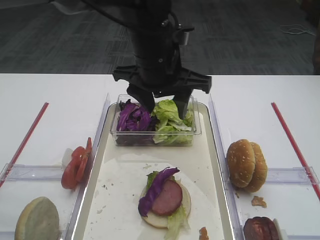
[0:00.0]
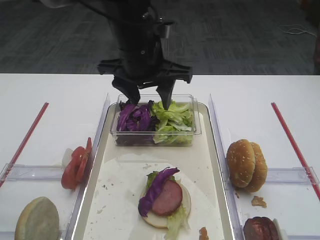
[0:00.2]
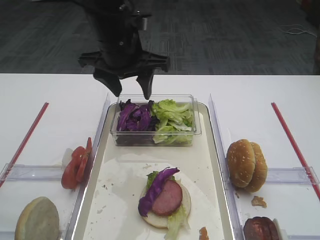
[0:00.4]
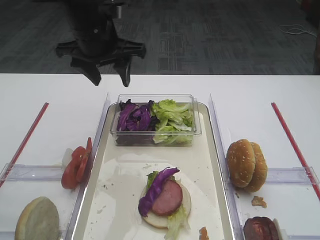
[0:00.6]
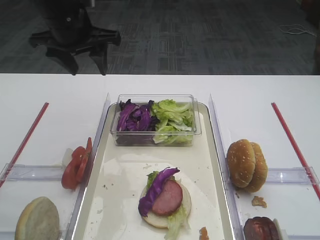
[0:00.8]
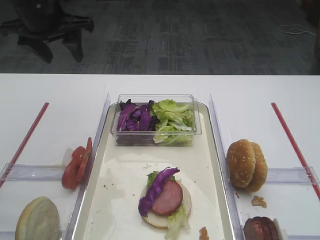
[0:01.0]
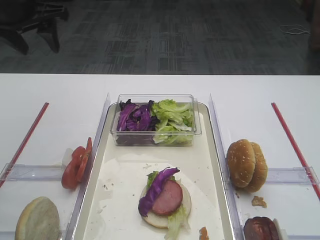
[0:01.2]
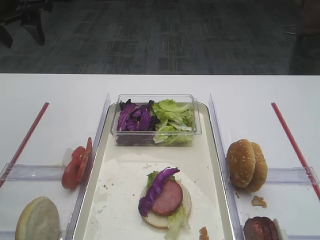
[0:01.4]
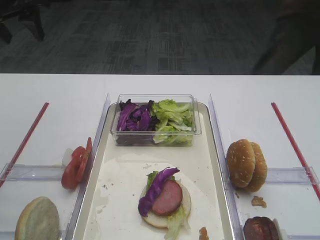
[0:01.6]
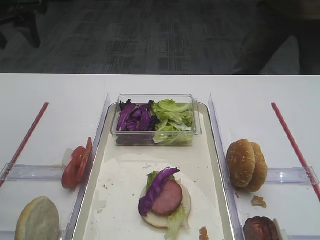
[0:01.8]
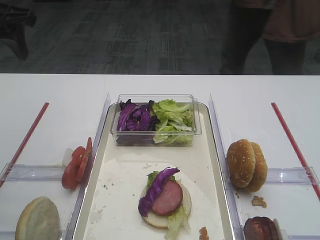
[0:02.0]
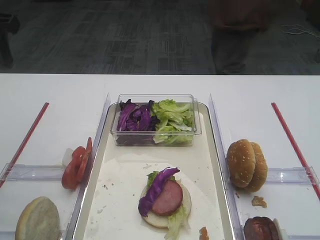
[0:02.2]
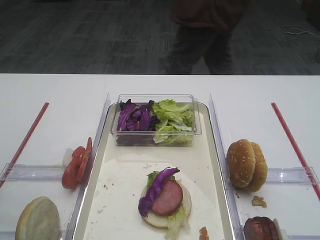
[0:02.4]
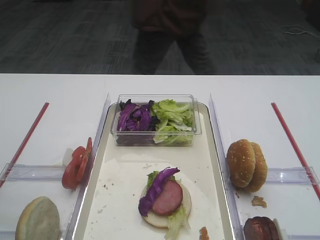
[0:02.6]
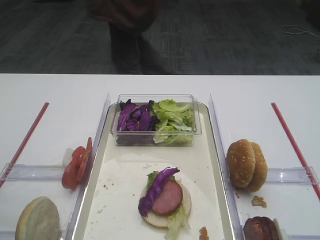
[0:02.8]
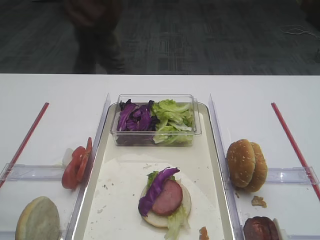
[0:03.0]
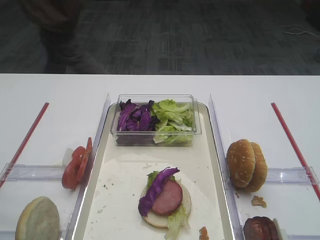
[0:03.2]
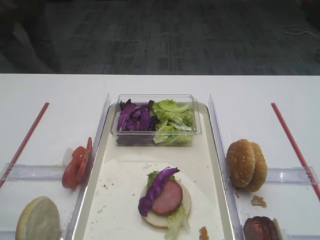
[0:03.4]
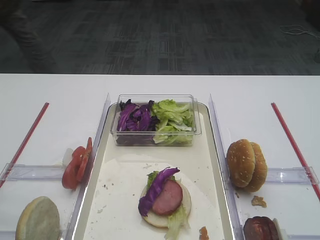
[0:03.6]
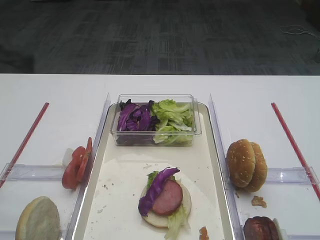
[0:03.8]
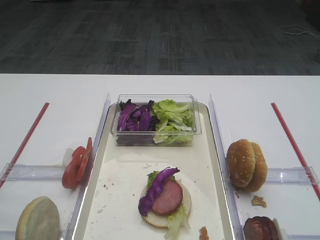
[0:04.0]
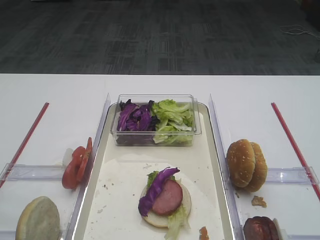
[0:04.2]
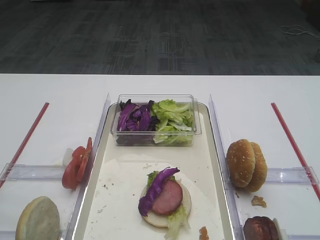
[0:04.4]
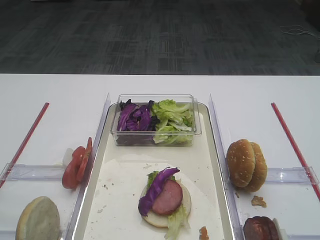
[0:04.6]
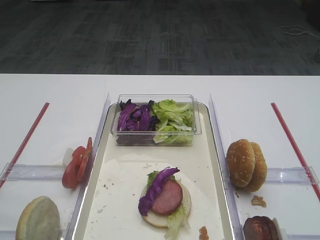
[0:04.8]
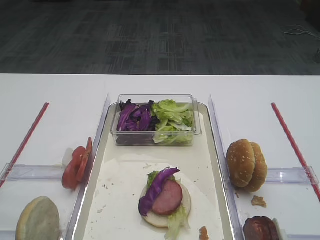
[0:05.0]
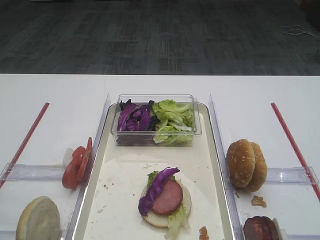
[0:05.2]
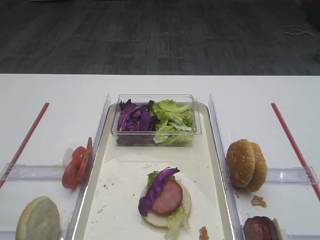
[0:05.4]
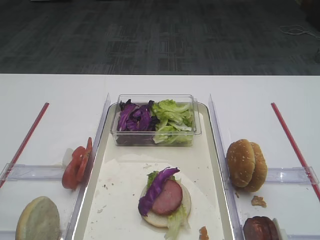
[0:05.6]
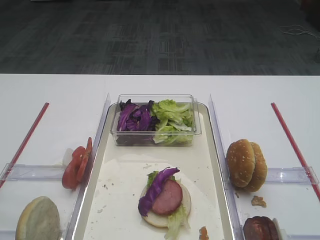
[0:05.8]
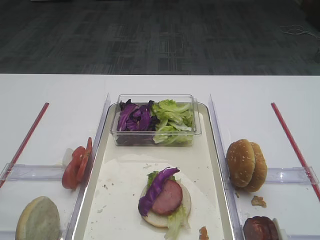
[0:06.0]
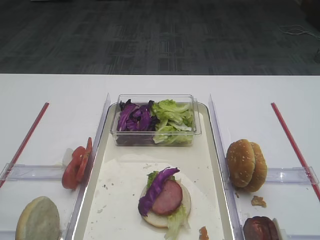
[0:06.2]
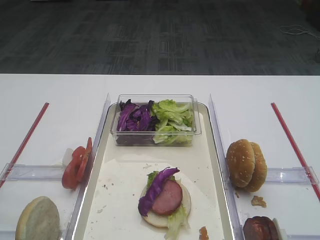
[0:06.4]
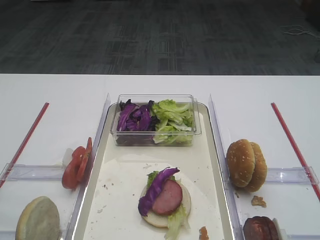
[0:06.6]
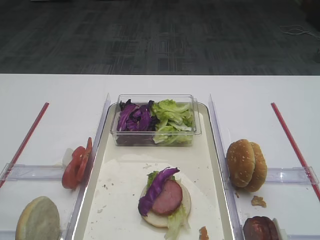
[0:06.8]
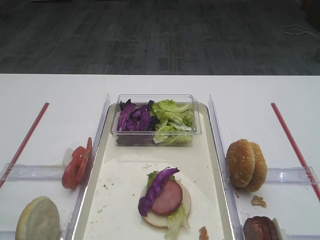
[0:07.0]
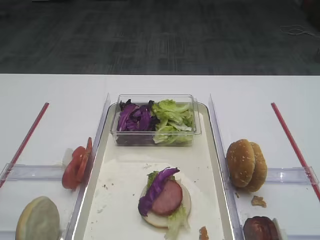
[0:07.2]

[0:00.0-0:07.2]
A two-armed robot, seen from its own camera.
0:00.0 to 0:01.4: The left gripper is displaced to the left by roughly 25 cm.
0:01.4 to 0:02.8: The left gripper is displaced backward by about 20 cm.
0:02.8 to 0:04.4: The left gripper travels backward by about 20 cm.
0:05.8 to 0:07.2: The two grippers keep their place.

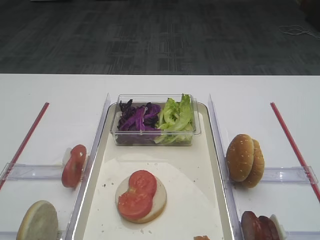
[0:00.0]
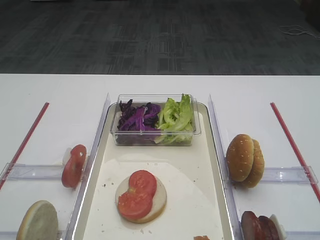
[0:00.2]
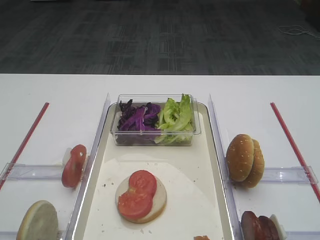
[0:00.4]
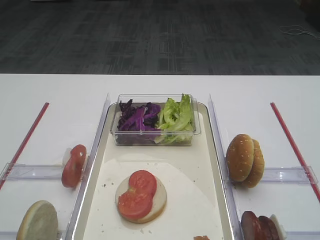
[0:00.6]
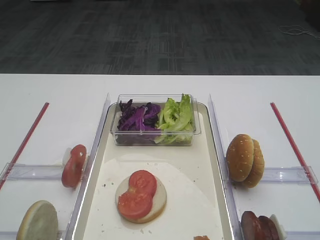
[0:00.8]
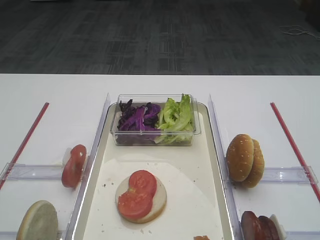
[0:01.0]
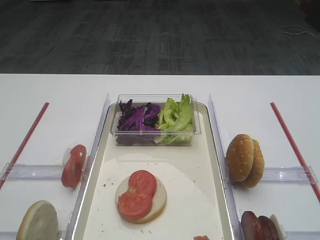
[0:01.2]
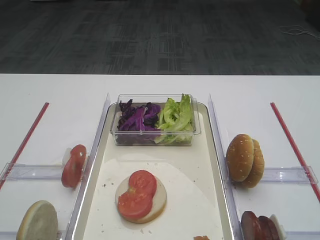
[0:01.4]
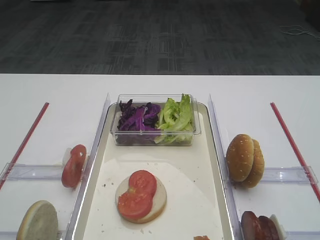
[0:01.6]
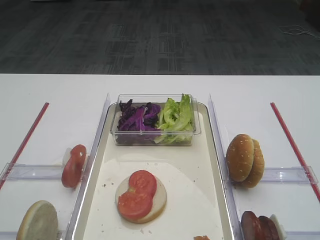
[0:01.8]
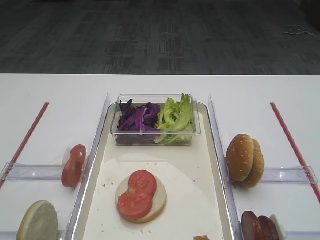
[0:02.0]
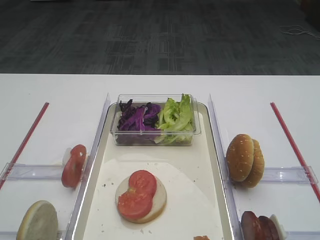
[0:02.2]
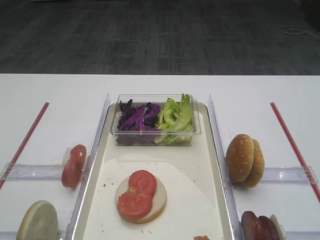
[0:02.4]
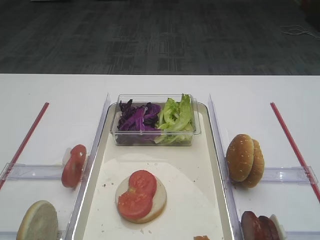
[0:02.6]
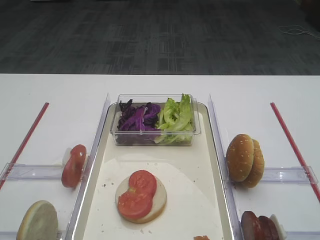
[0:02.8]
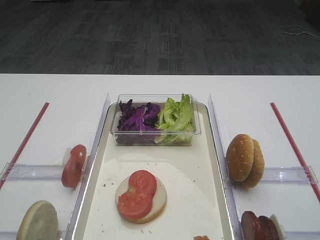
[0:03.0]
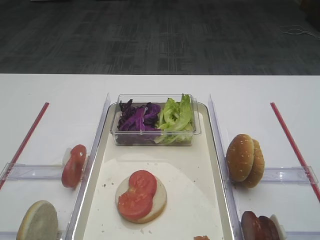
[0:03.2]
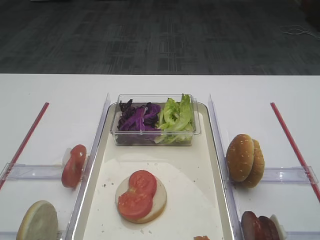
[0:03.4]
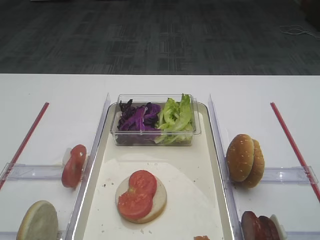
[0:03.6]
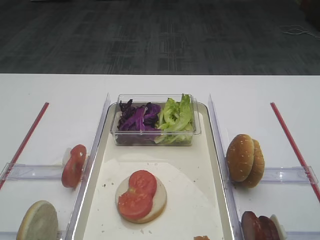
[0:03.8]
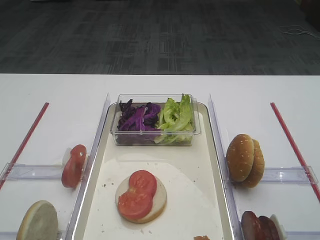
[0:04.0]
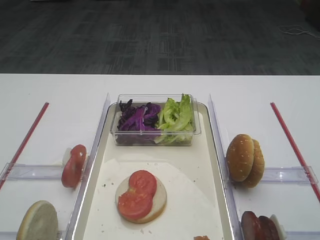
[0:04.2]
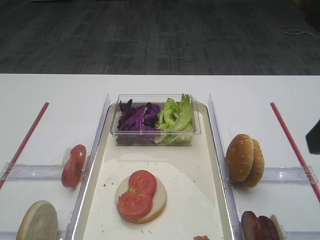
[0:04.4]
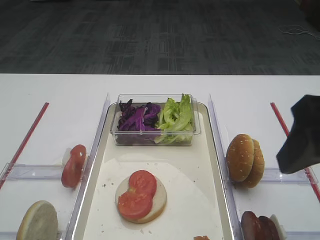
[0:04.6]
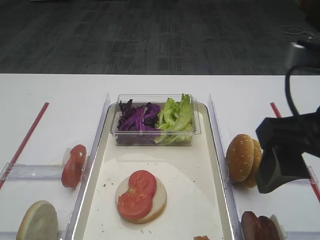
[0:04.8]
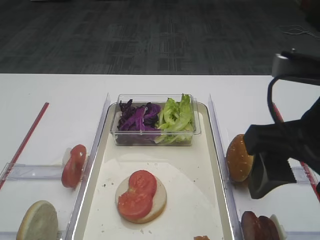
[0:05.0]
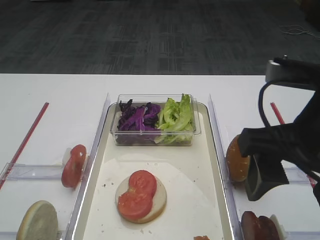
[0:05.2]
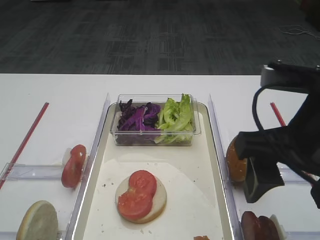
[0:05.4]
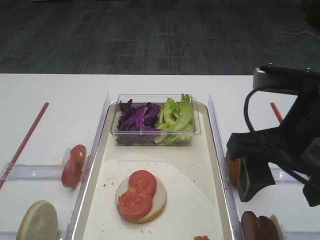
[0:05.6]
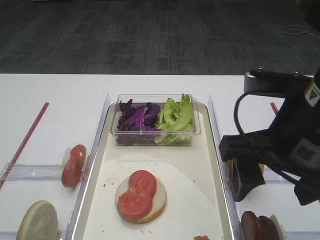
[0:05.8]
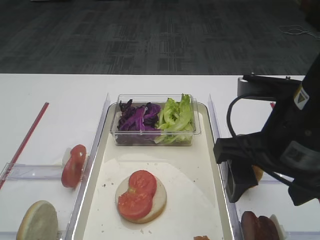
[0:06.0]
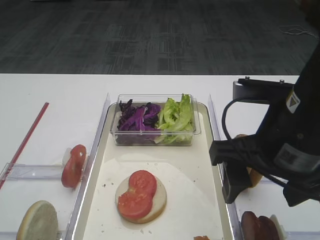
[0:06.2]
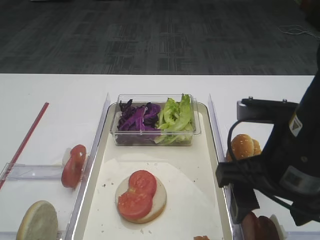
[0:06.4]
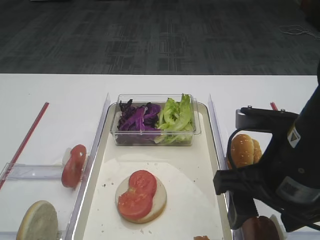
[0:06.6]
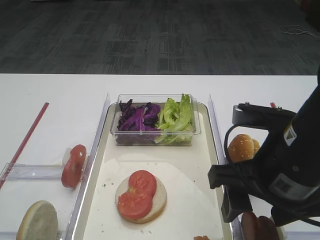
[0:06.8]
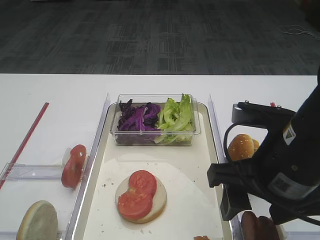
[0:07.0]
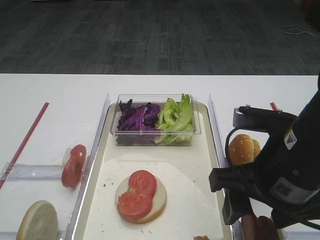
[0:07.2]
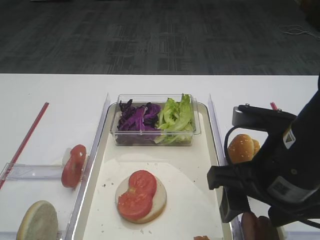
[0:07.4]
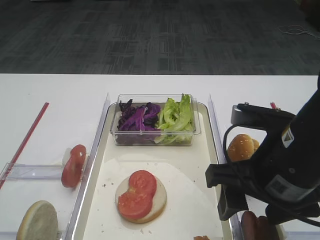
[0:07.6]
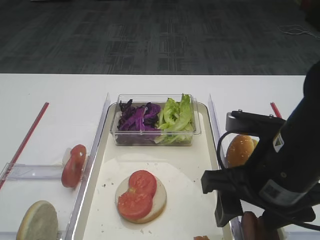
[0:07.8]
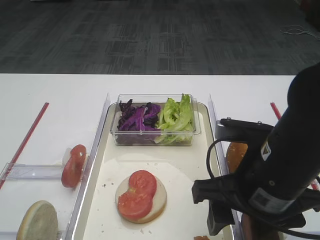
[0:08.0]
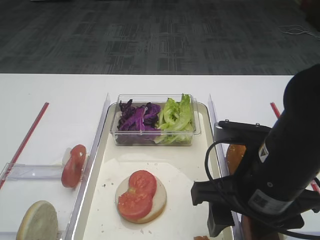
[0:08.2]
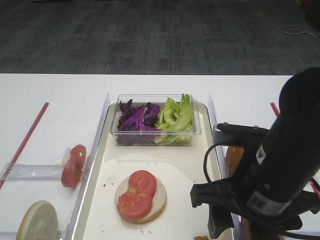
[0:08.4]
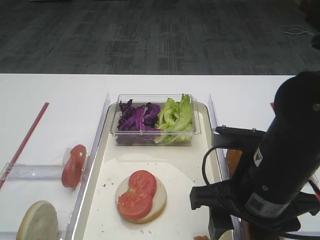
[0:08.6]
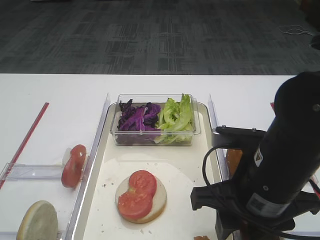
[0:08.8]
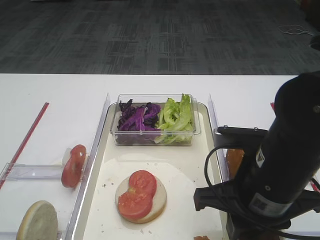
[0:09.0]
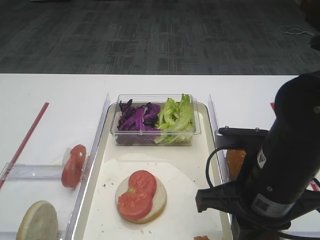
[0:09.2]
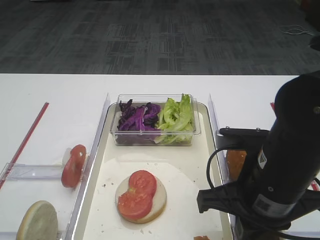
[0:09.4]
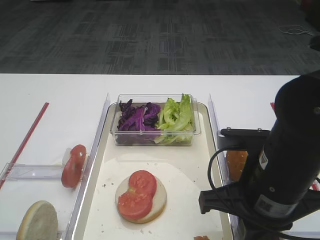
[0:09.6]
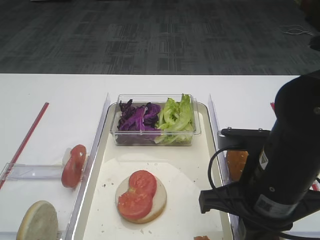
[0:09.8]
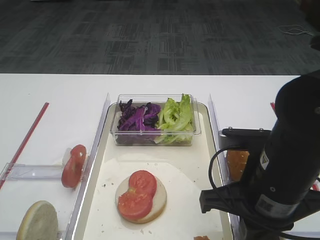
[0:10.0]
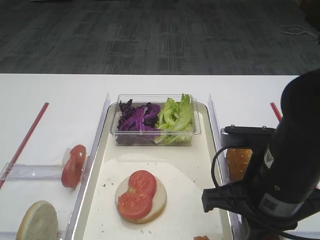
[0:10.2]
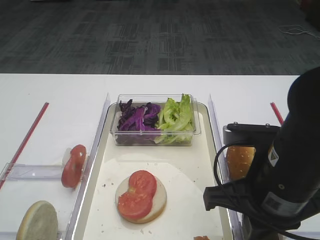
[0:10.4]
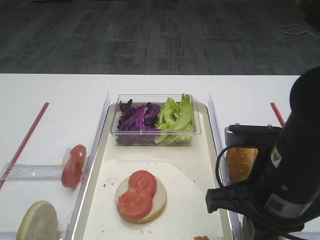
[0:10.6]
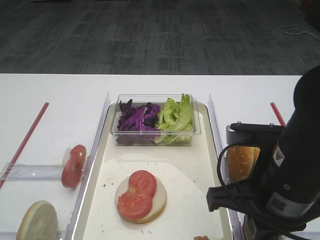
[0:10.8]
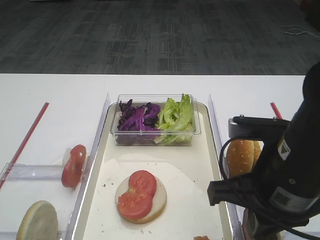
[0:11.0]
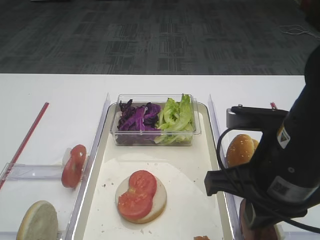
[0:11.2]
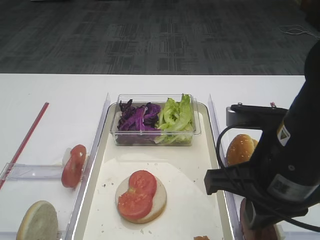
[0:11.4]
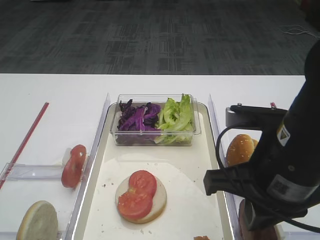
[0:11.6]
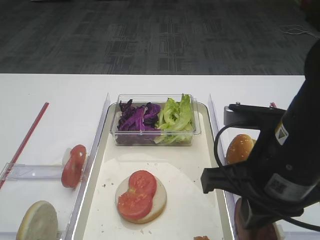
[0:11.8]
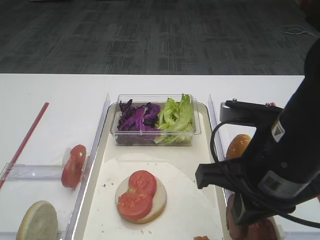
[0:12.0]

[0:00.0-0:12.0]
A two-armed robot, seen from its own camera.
0:04.4 to 0:06.0: The right gripper goes about 10 cm to the left and downward.
0:06.0 to 0:07.6: The grippers stay close to where they were, moving slightly.
0:07.6 to 0:09.0: The right gripper closes its fingers.
0:09.0 to 0:12.0: The grippers stay close to where they were, moving slightly.

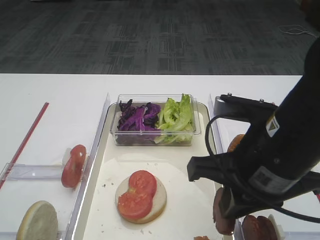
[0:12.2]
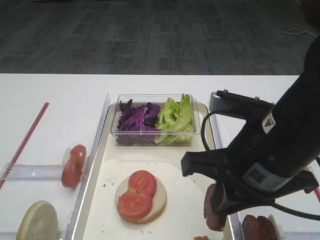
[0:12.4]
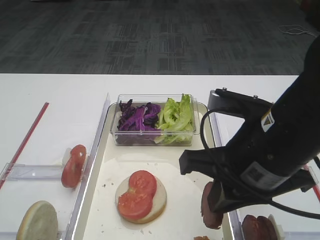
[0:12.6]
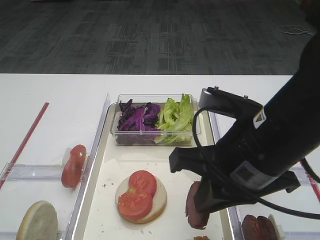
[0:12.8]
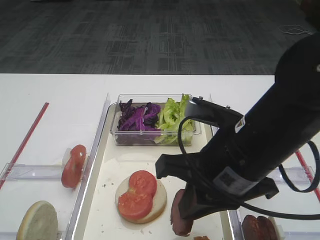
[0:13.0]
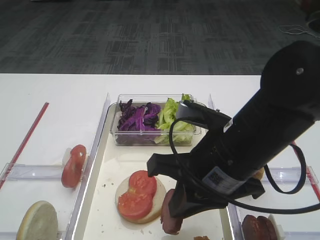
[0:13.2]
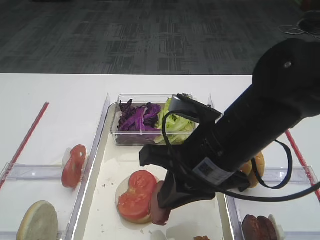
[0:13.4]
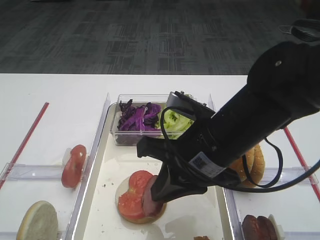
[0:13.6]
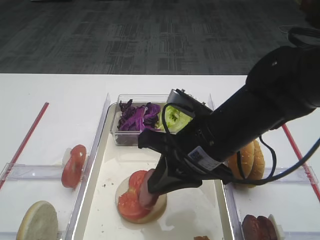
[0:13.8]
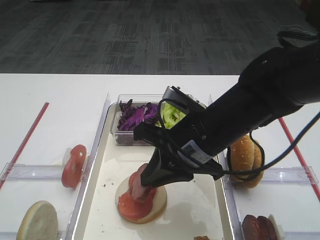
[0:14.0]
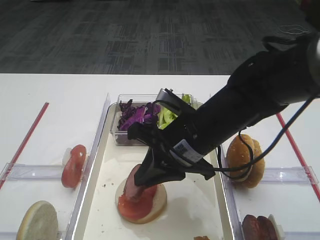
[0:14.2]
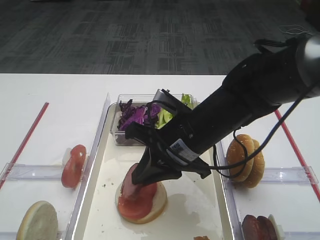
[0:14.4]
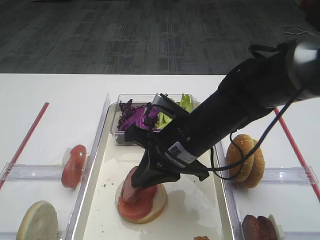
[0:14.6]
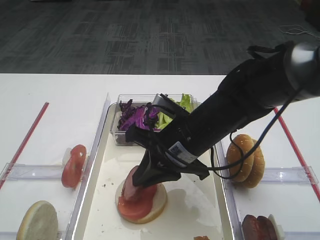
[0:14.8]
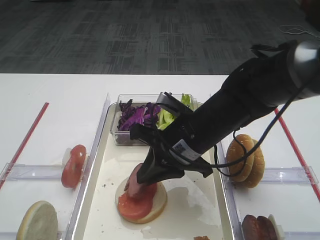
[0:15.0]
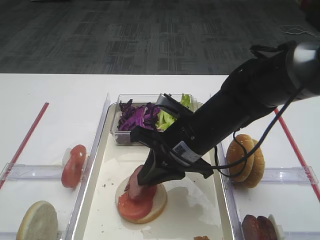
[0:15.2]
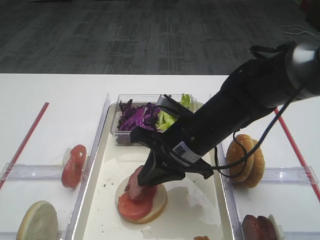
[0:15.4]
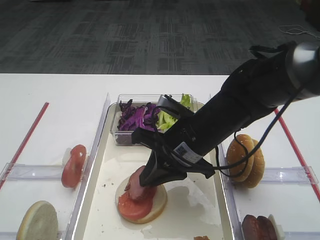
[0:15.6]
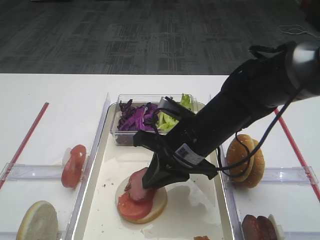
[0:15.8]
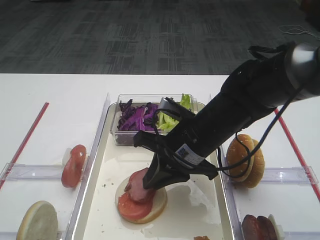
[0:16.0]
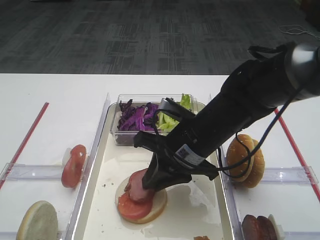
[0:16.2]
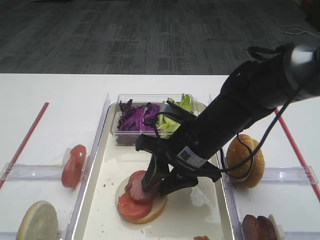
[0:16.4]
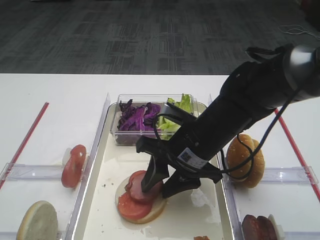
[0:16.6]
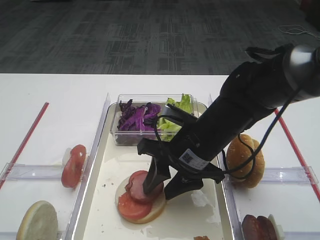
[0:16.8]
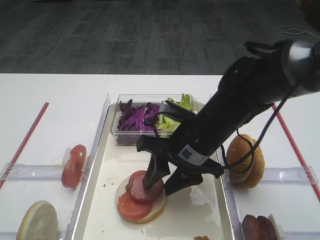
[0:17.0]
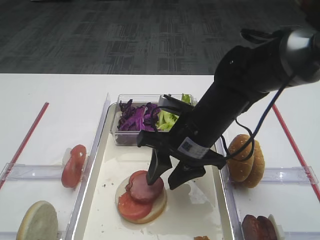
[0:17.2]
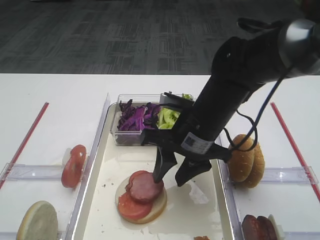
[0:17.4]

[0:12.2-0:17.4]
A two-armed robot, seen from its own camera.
0:12.2 to 0:14.0: The right gripper moves forward and to the left, approximately 10 cm.
0:14.0 to 0:15.6: The grippers stay close to where they were, moving slightly.
0:15.6 to 0:17.4: The right gripper opens up.
